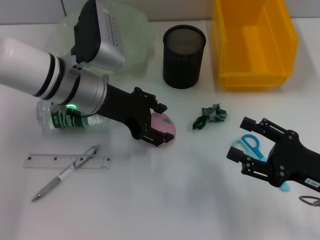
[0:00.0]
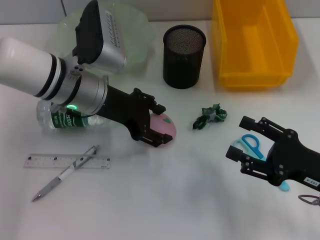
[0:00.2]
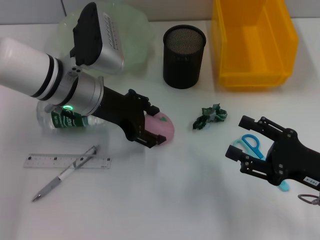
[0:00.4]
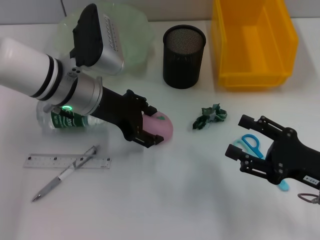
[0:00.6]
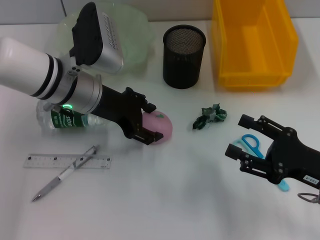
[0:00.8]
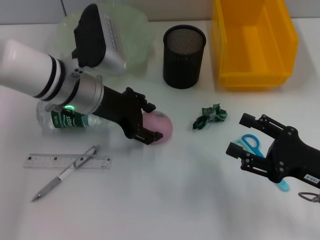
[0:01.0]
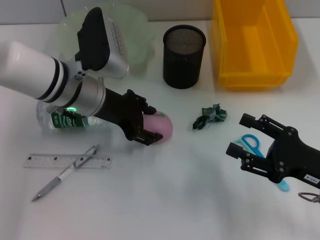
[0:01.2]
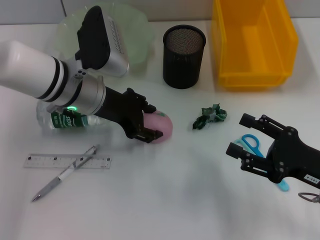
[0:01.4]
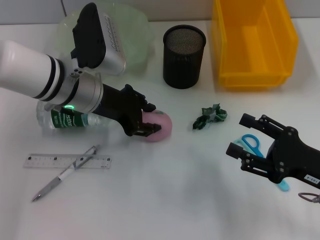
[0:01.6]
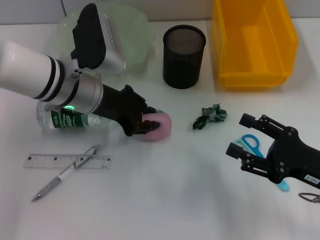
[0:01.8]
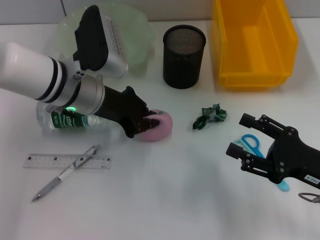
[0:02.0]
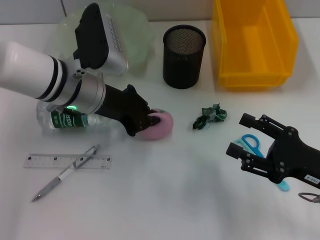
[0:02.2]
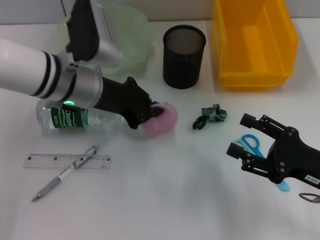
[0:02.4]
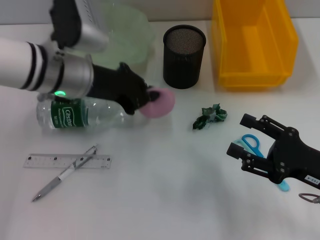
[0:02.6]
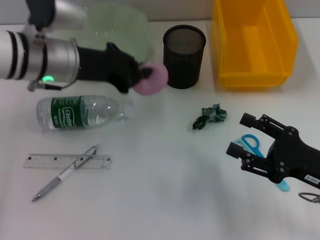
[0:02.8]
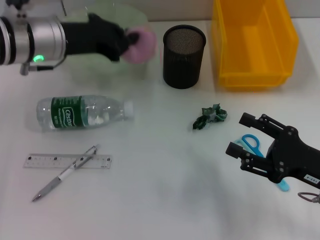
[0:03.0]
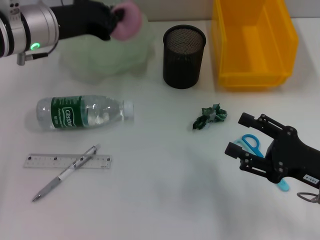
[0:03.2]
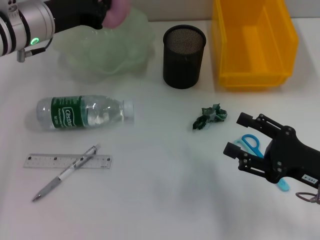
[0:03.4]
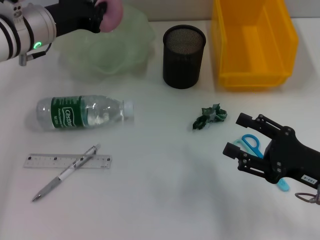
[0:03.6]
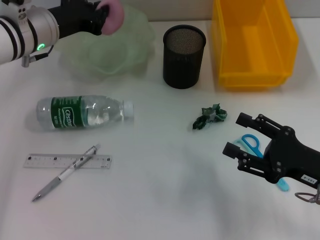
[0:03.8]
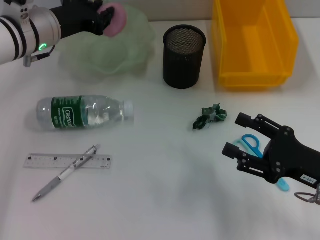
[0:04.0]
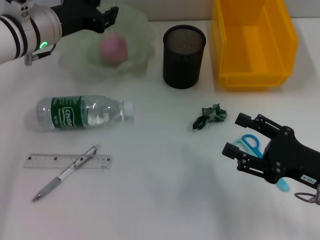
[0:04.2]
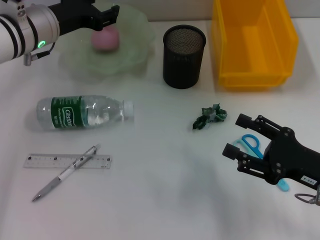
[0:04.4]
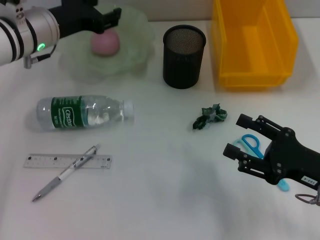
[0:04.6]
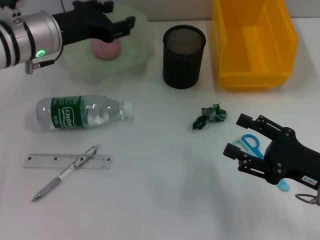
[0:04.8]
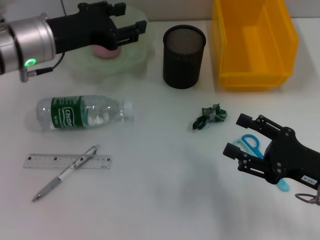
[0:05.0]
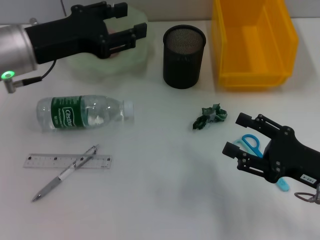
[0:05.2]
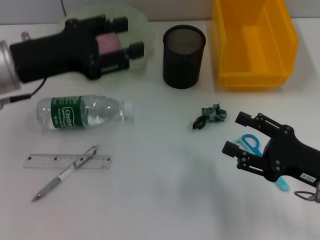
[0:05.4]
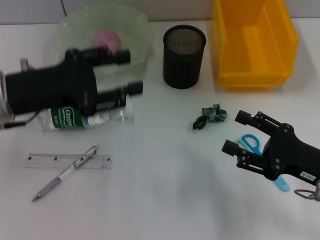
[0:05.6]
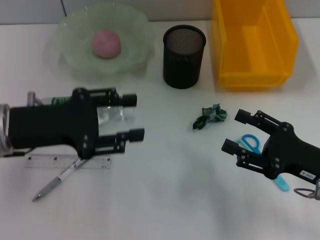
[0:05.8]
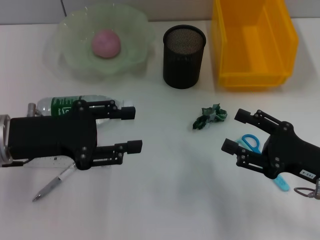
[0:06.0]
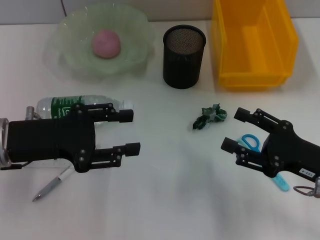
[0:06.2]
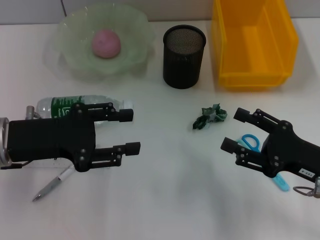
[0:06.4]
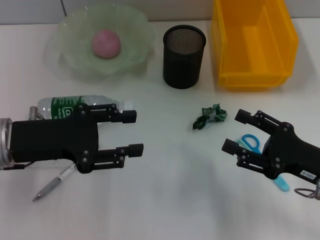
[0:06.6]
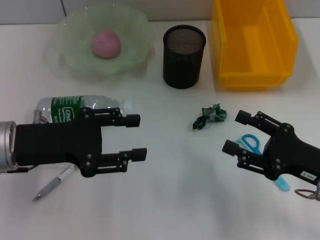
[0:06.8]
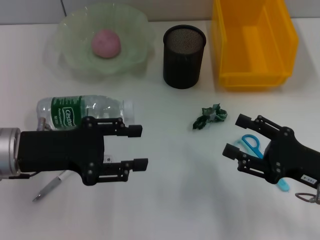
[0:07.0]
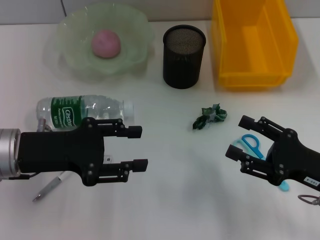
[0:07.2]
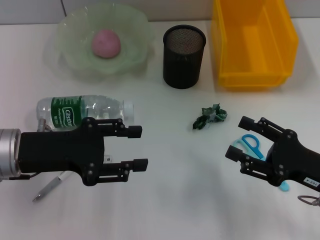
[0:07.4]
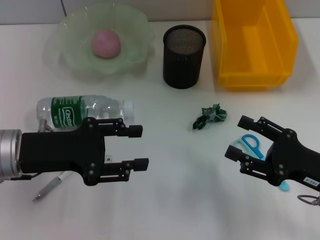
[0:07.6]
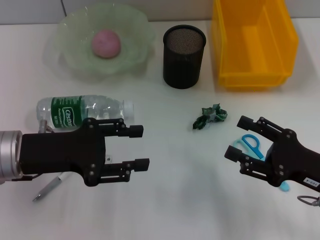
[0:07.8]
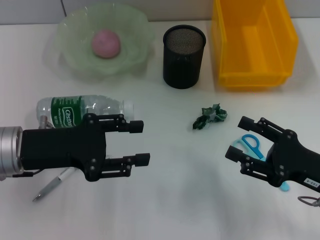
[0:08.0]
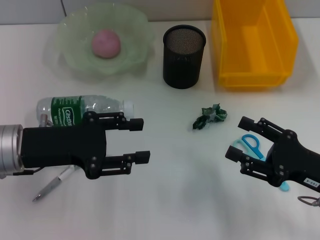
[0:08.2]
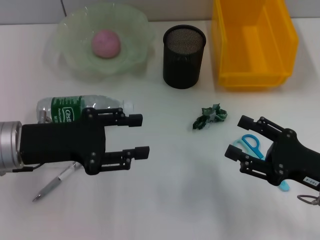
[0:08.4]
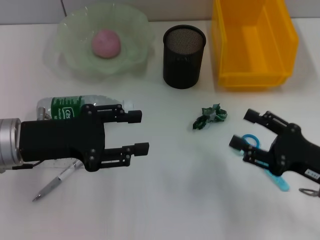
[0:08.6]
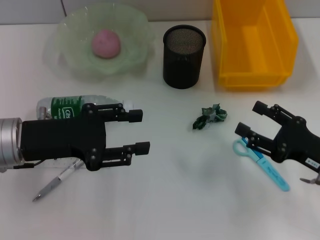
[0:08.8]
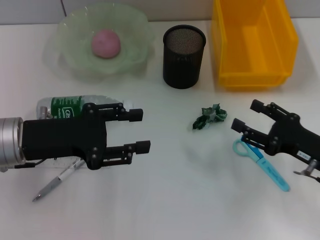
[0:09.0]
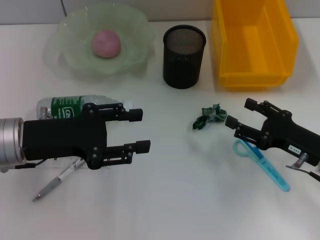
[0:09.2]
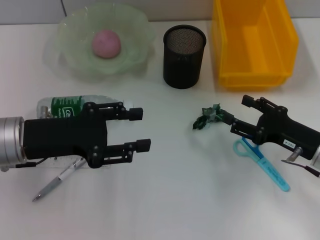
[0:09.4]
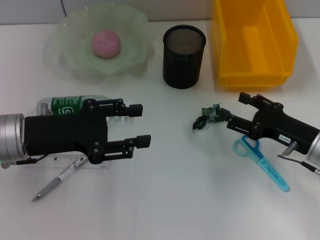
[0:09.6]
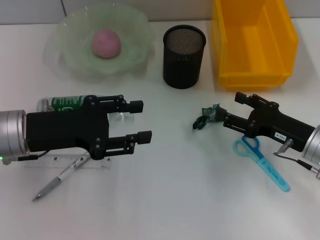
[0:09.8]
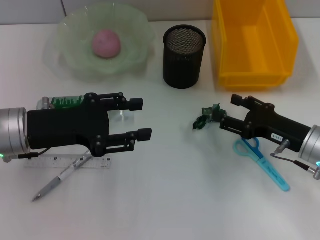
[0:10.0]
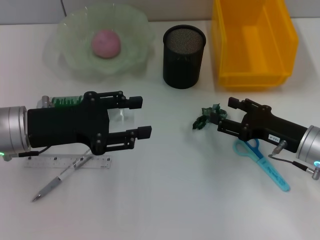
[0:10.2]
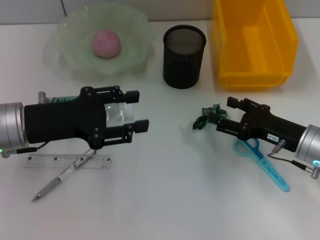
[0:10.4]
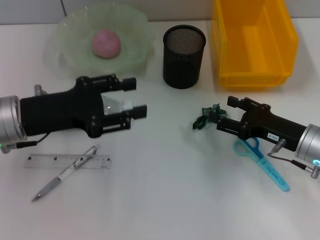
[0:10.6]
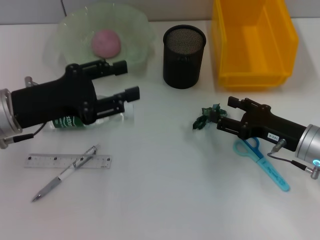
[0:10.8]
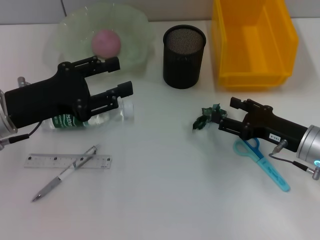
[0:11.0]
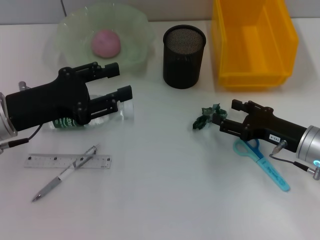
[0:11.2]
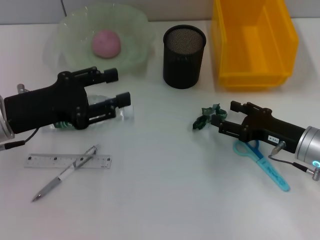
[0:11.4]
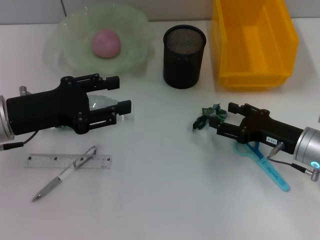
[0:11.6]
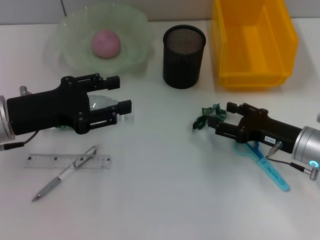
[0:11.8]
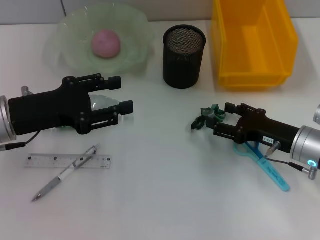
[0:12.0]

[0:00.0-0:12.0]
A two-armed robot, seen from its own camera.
Step, 0:00.0 to 0:02.0: Grab the peach with the left hand.
Step, 0:02.2 to 0:04.8: Place the peach into the fruit bowl with the left hand.
0:00.0 to 0:01.6: There are only small adjustments of the grippers.
0:01.6 to 0:03.0: The left gripper ends up approximately 5 cm from where it was, and closes up.
0:03.0 to 0:04.4: The left gripper opens up.
0:04.4 to 0:06.0: The left gripper shifts some 15 cm backward.
0:06.0 to 0:09.0: The grippers make only small movements.
0:09.0 to 0:10.4: The right gripper shifts by some 5 cm.
0:10.4 to 0:12.0: The grippers make only small movements.

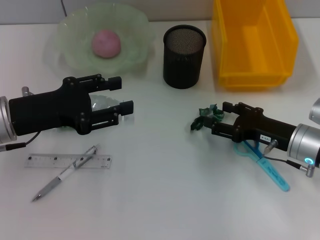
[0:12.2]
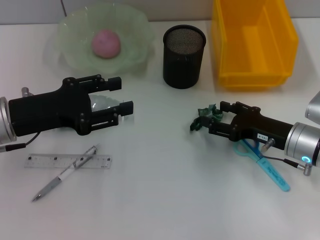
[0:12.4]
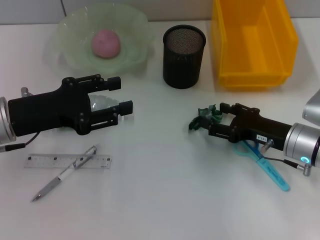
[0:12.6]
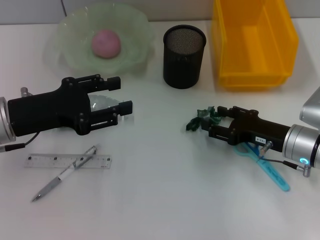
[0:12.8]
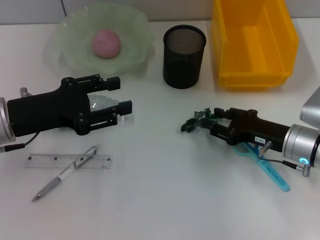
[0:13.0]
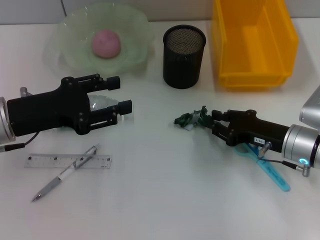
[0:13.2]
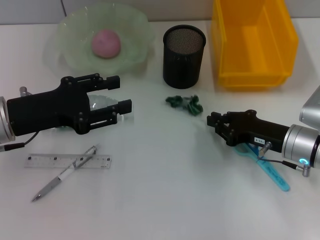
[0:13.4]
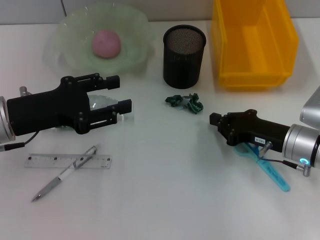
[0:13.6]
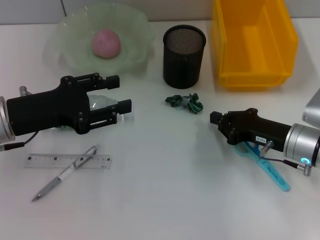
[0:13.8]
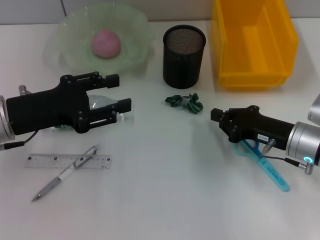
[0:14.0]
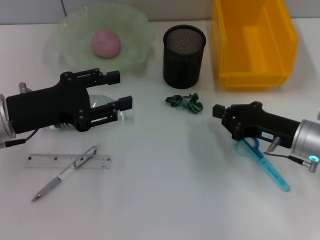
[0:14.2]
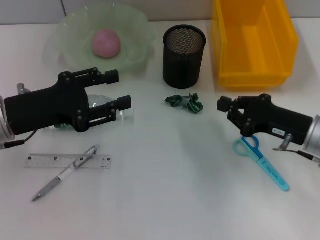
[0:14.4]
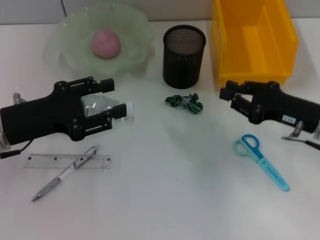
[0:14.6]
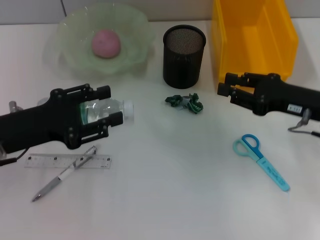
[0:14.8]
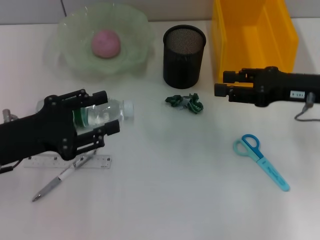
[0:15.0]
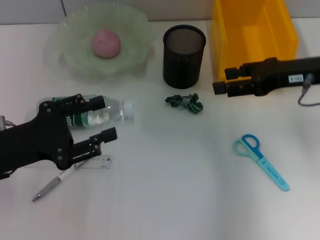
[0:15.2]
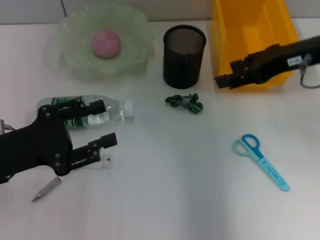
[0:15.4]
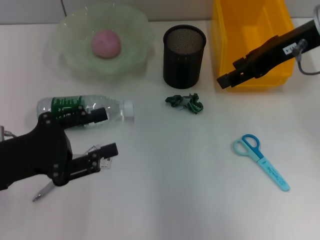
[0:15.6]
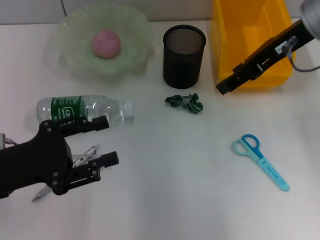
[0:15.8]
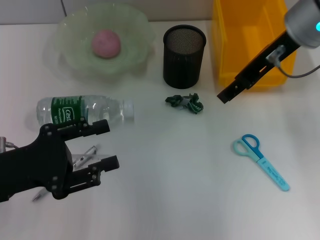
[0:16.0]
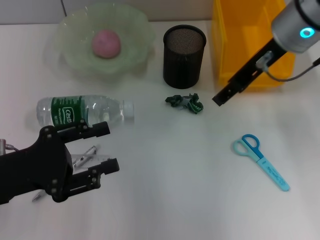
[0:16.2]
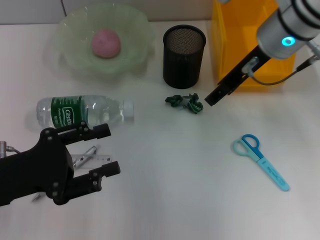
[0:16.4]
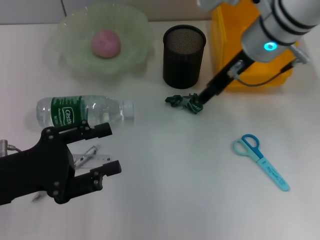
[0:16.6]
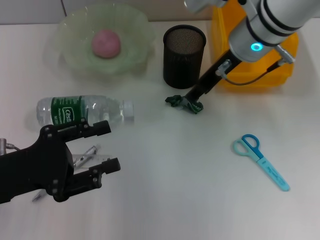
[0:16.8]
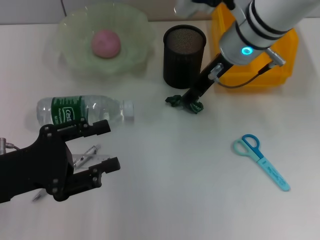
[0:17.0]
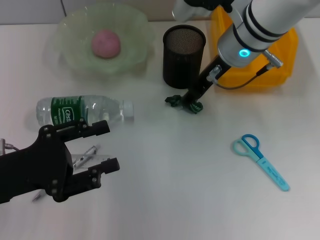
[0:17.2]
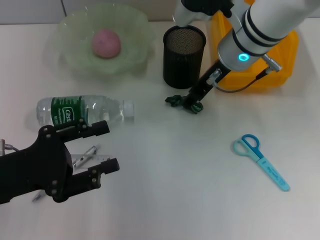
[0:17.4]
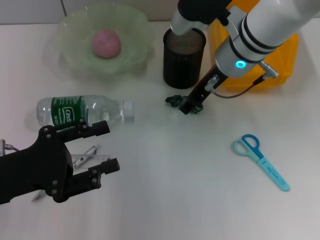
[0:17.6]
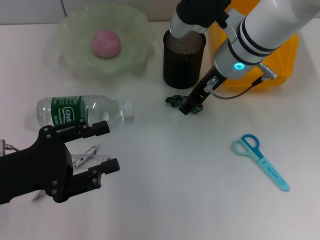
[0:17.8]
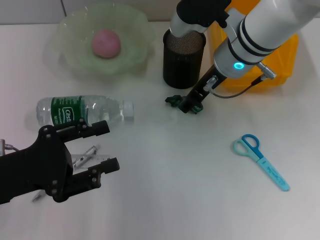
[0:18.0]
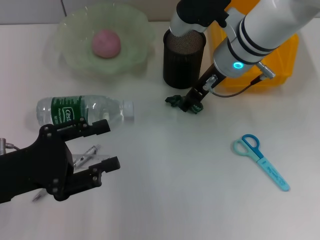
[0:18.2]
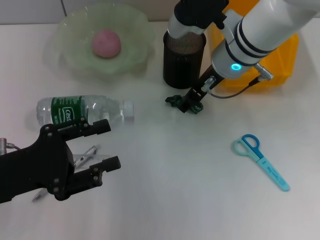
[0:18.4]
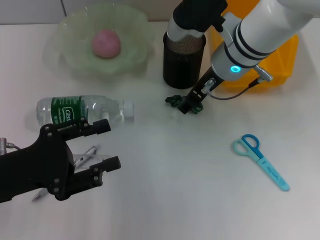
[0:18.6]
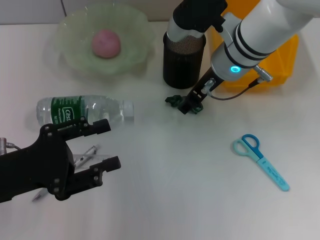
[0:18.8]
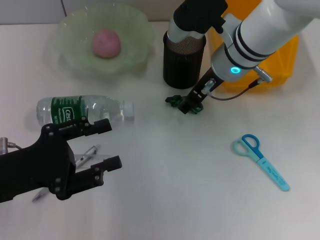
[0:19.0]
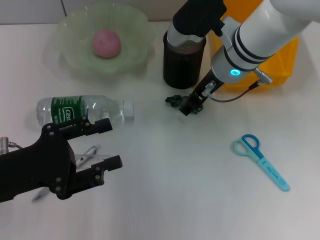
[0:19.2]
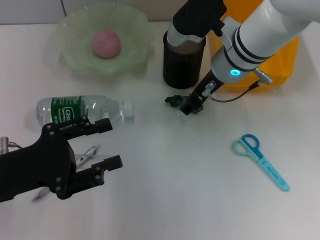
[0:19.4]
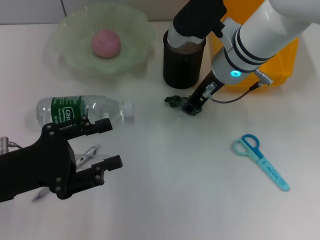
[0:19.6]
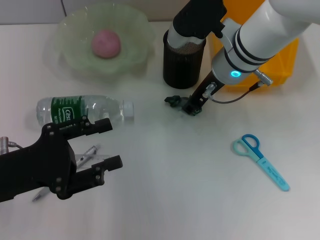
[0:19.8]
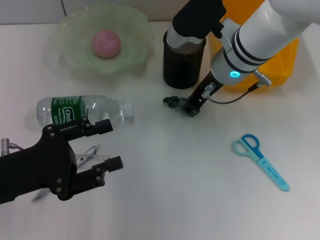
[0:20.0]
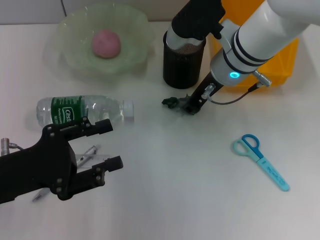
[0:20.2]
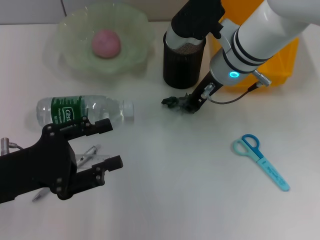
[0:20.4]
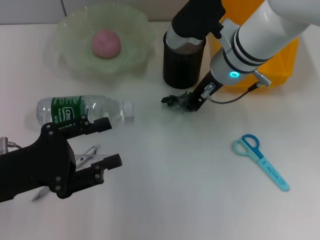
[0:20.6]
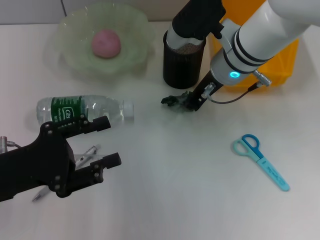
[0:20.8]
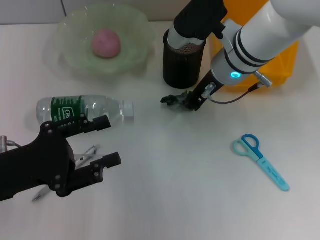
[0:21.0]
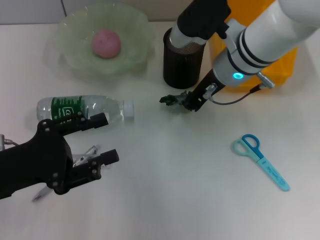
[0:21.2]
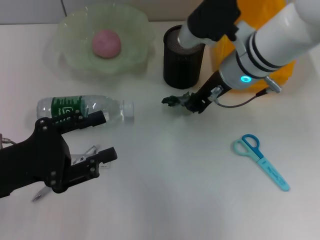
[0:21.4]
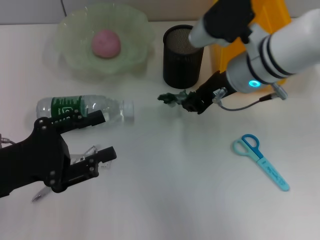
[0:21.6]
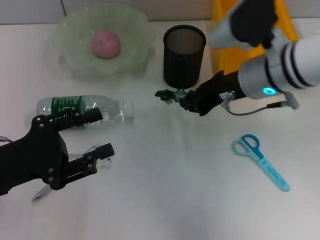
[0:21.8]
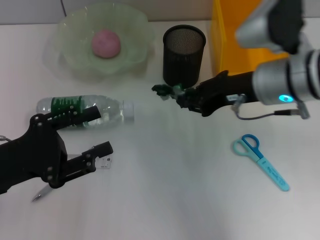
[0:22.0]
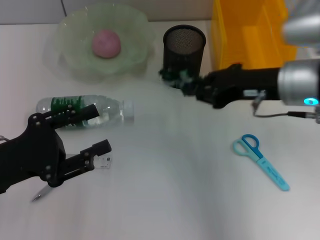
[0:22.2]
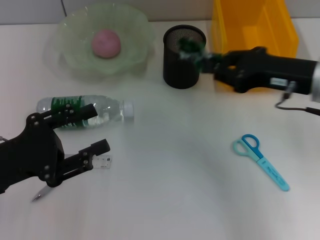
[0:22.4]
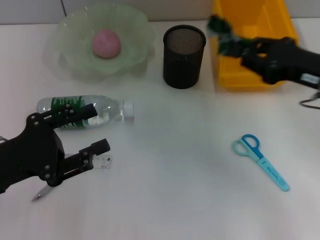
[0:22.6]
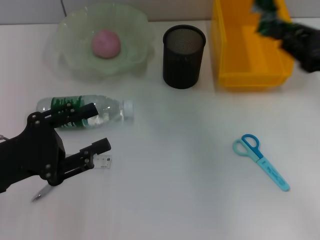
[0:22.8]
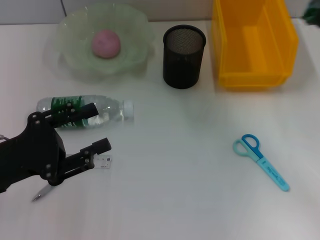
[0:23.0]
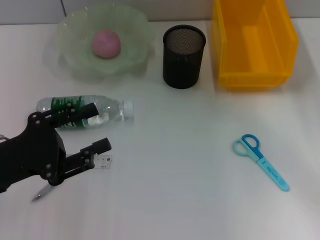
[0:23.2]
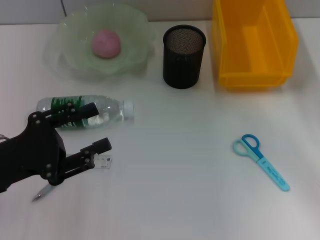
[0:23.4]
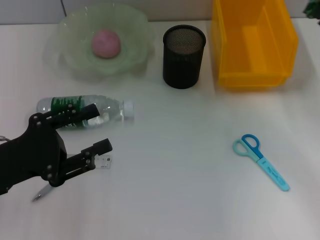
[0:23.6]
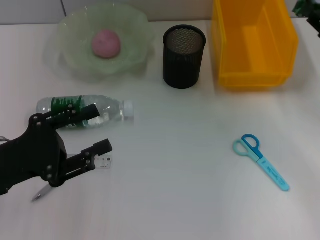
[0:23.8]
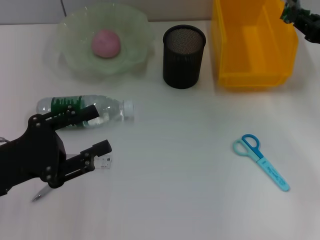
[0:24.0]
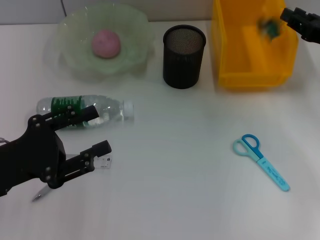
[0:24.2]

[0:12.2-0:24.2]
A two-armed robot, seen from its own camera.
Step, 0:12.2 to 0:21.0: Grab the plastic with the right hand.
Step, 0:21.2 to 0:24.2: Place the plastic into the trash can with the right hand.
0:12.2 to 0:13.8: The right gripper closes up.
0:13.8 to 0:15.2: The right gripper shifts approximately 15 cm upward, and opens up, while the left gripper goes roughly 5 cm backward.
0:15.2 to 0:16.6: The right gripper travels to the left and forward by some 15 cm.
0:16.6 to 0:18.2: There are only small adjustments of the grippers.
0:18.2 to 0:19.8: The two grippers keep their place.
0:19.8 to 0:21.2: The right gripper closes up.
0:21.2 to 0:22.6: The right gripper is displaced to the right and backward by approximately 20 cm.
0:22.6 to 0:24.2: The right gripper heads forward and to the right, covering some 10 cm.
